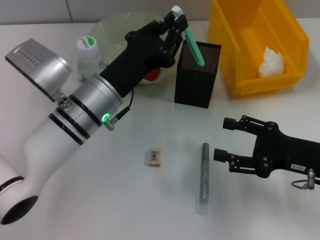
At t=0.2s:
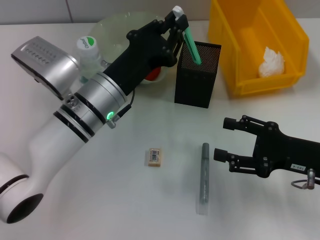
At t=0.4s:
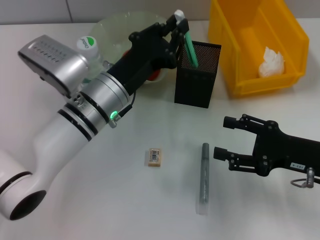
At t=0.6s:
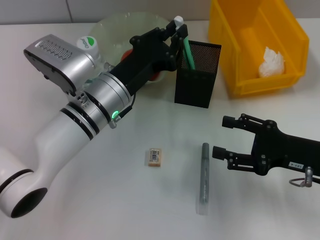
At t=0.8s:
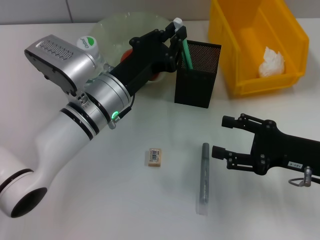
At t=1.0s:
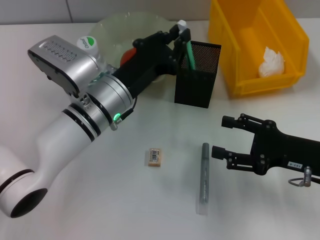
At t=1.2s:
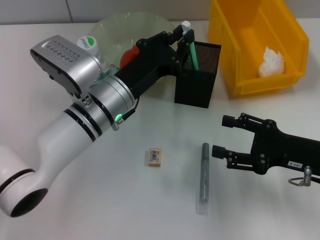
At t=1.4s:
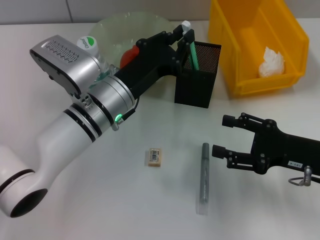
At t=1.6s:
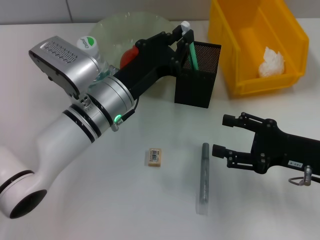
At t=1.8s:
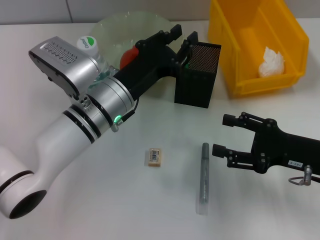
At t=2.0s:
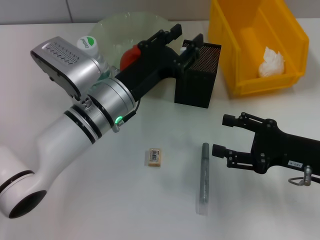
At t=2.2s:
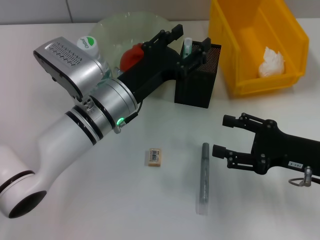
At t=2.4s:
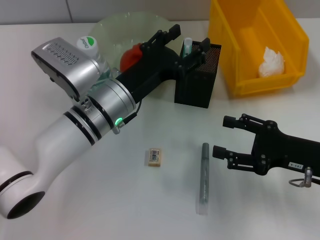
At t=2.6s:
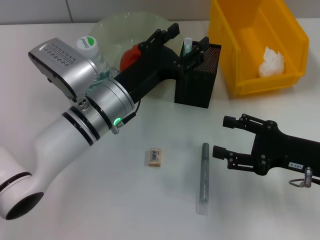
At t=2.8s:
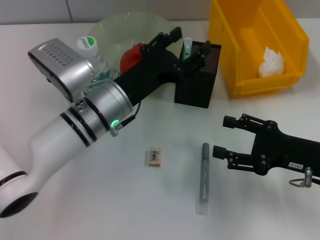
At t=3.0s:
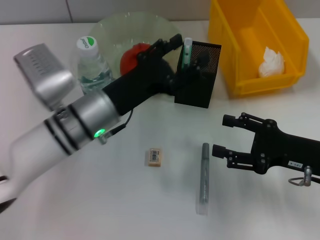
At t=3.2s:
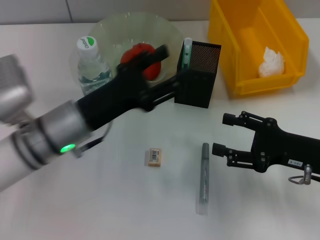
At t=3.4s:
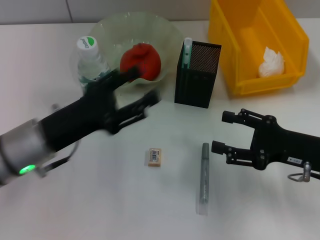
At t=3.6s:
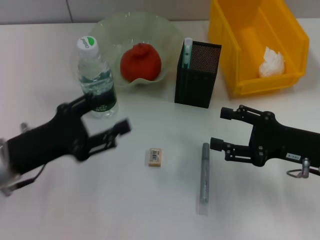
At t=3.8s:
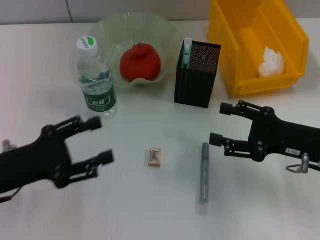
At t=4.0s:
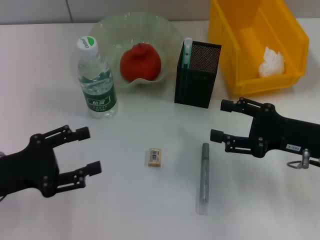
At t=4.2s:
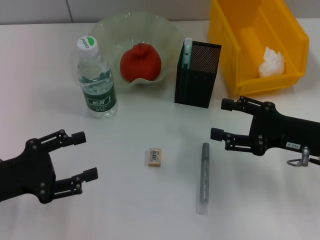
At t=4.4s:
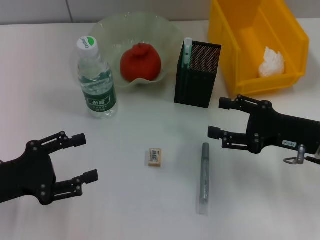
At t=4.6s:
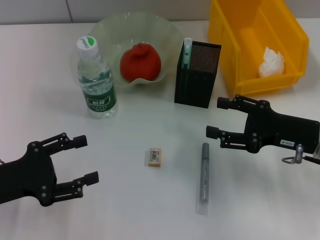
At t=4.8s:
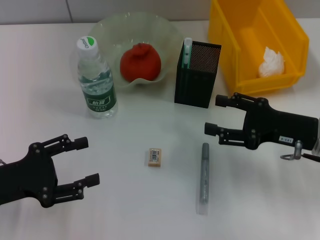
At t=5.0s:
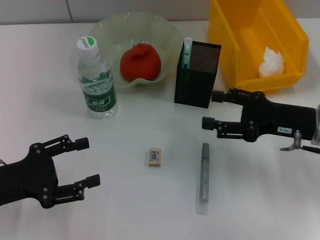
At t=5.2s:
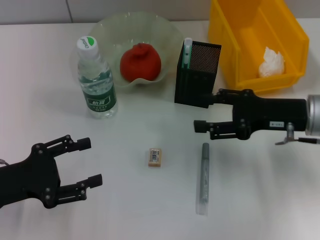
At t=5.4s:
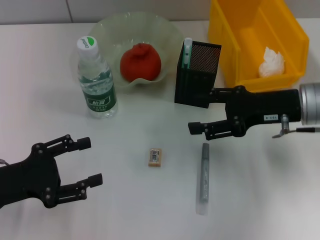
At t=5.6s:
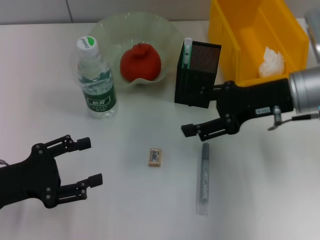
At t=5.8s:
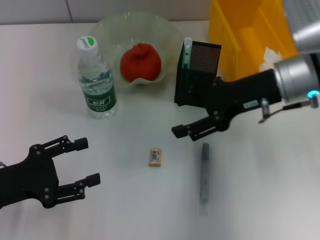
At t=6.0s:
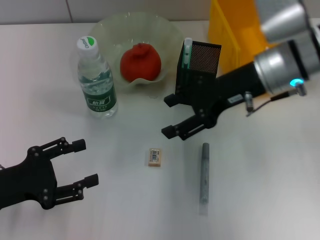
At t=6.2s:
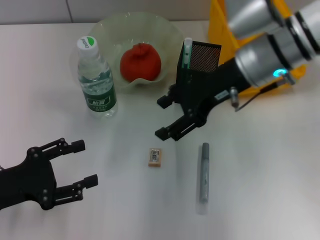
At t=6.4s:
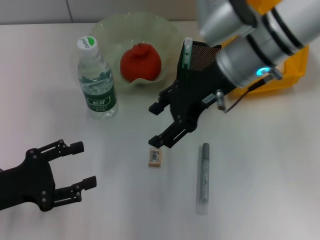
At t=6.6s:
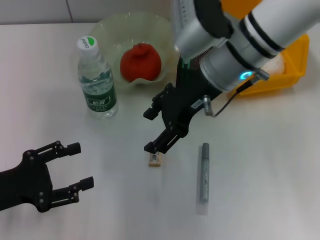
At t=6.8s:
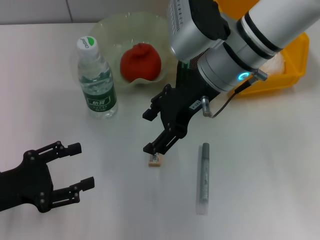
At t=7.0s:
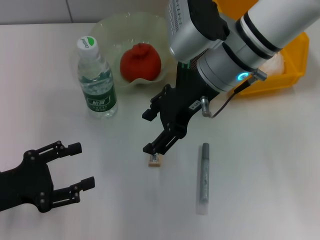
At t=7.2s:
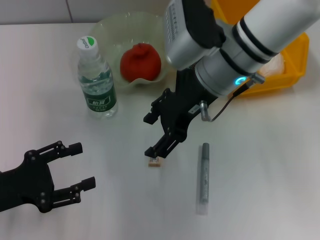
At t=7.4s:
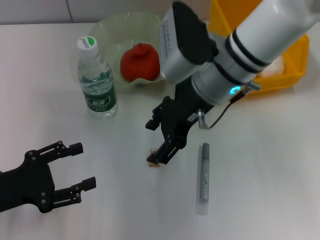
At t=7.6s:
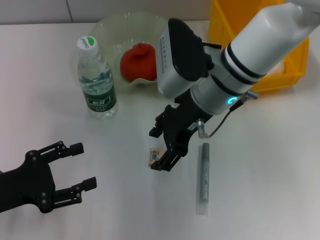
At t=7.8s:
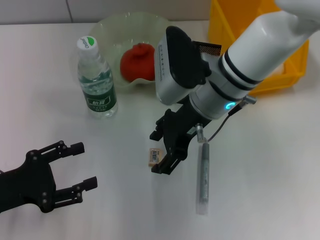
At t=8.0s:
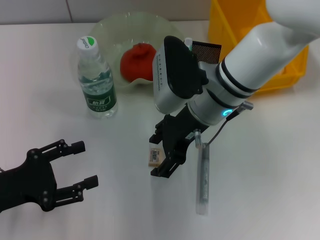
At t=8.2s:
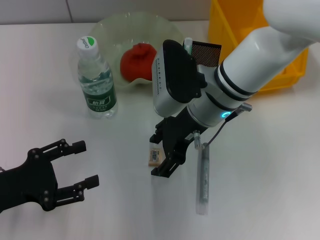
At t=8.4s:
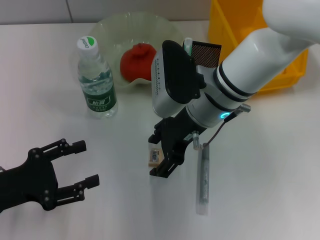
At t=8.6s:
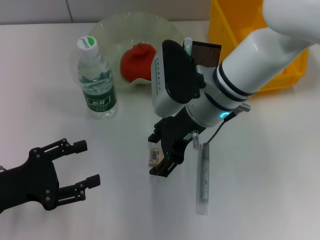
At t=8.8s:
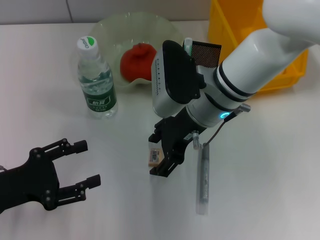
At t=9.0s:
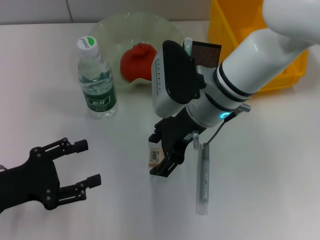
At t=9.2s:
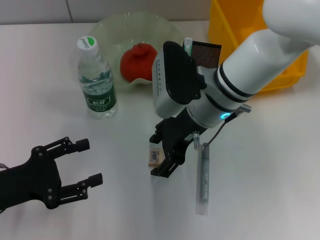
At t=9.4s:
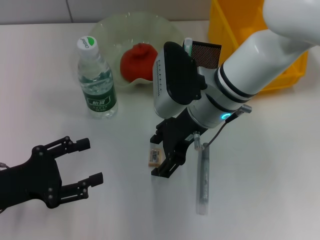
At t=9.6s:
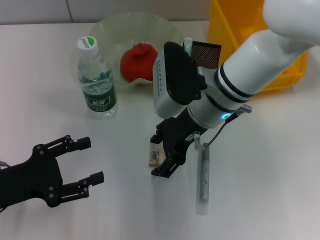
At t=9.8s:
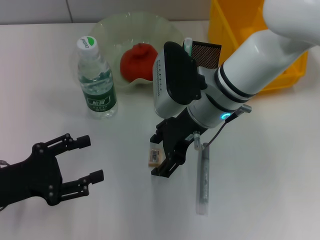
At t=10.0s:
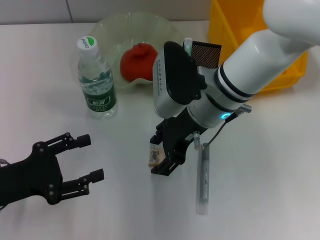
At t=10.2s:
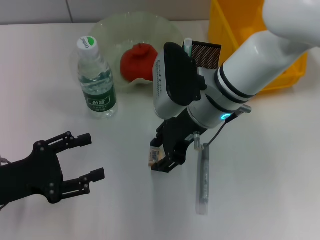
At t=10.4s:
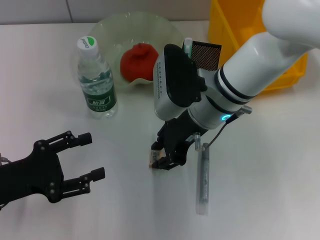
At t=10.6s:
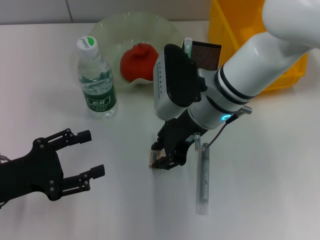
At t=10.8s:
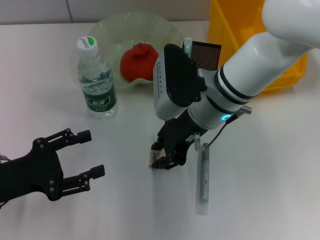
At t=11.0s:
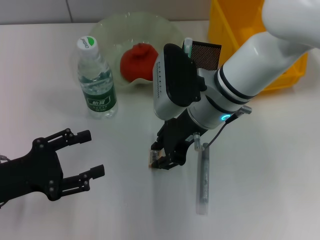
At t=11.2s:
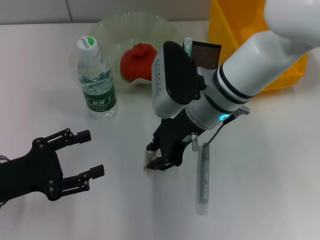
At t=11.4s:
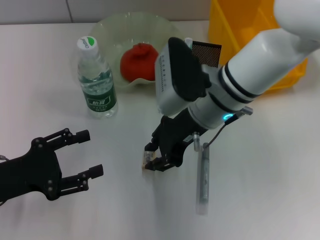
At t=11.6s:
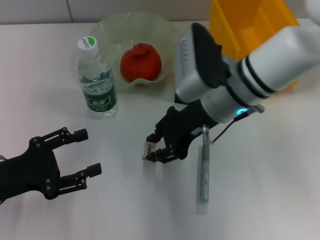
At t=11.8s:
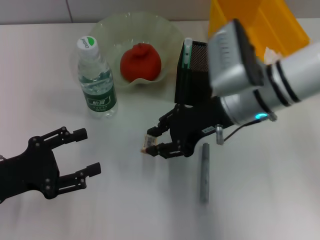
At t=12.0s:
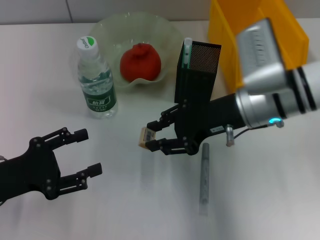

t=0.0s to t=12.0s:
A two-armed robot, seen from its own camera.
Step, t=0.0s to t=2.0s: Place the blue utility knife into the pen holder with the left hand.
Step, t=2.2s to t=10.8s: Grab the eraser with the right hand.
t=0.0s to t=1.6s: The grippers stay close to where they were, moving slightly.
t=1.6s to t=3.0s: The left gripper opens its fingers.
t=3.0s to t=4.4s: The left gripper moves to the left and backward, roughly 20 cm.
t=4.4s to t=6.0s: The right gripper travels upward, to the left and forward by about 15 cm.
t=6.0s to t=7.6s: The right gripper travels to the left by roughly 10 cm.
t=7.6s to t=9.0s: The grippers make only small movements.
t=9.0s to t=10.4s: Both grippers stay put.
t=10.4s to t=12.0s: The right gripper goes about 5 cm to the right.

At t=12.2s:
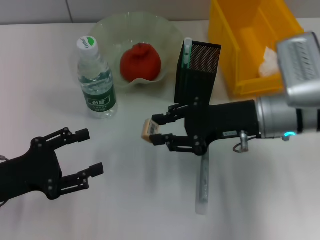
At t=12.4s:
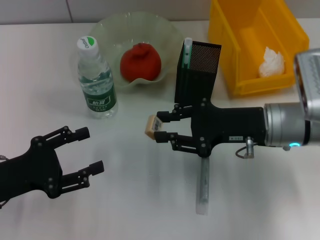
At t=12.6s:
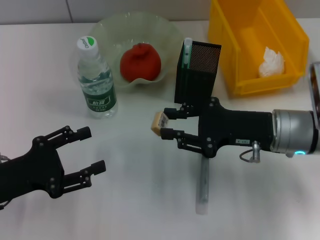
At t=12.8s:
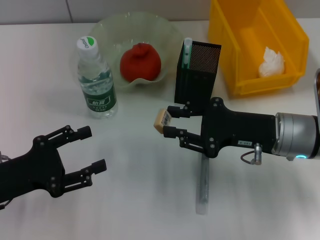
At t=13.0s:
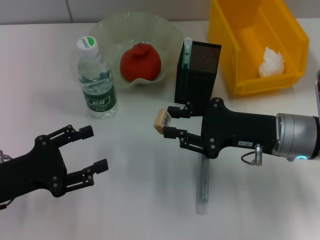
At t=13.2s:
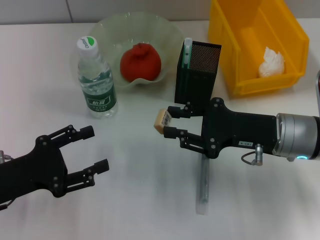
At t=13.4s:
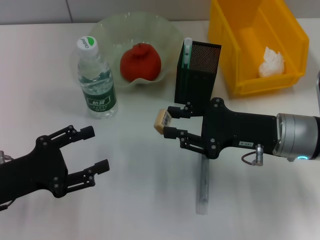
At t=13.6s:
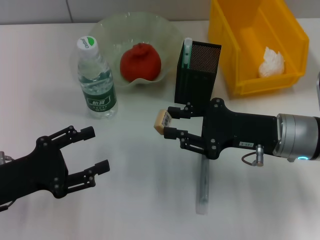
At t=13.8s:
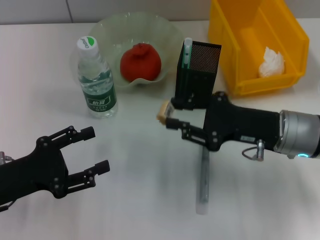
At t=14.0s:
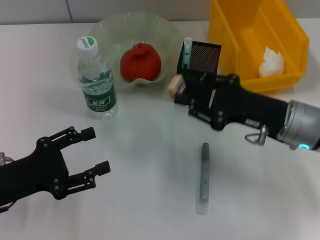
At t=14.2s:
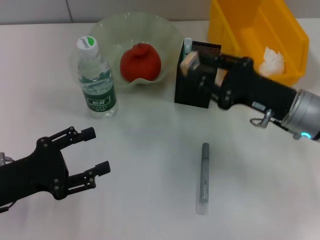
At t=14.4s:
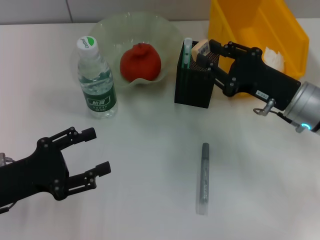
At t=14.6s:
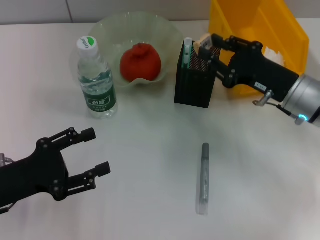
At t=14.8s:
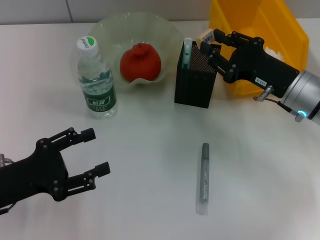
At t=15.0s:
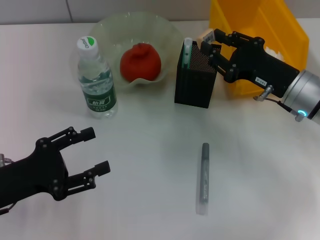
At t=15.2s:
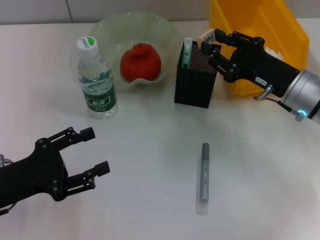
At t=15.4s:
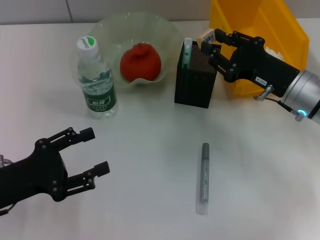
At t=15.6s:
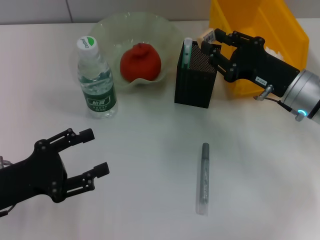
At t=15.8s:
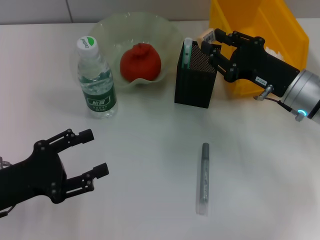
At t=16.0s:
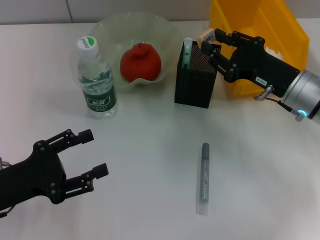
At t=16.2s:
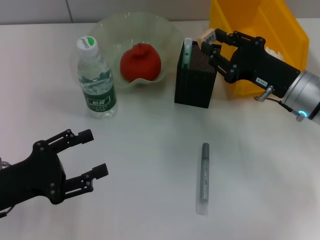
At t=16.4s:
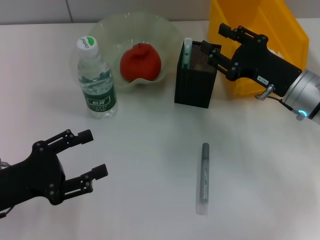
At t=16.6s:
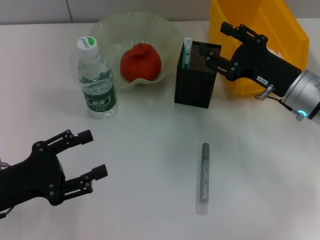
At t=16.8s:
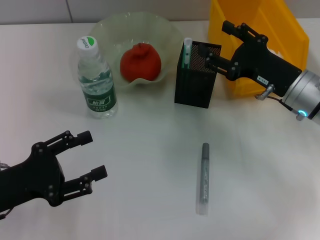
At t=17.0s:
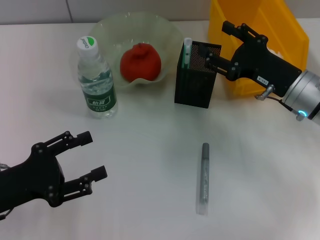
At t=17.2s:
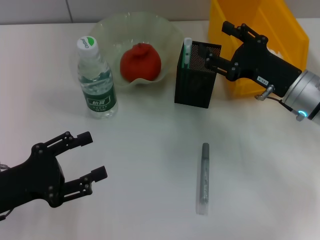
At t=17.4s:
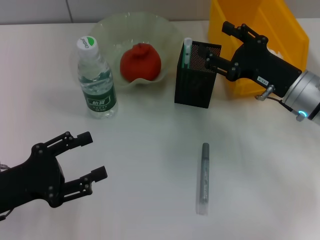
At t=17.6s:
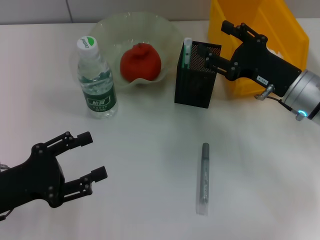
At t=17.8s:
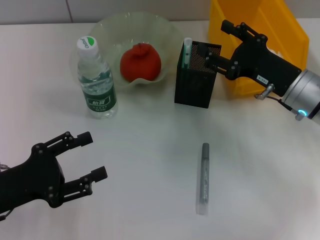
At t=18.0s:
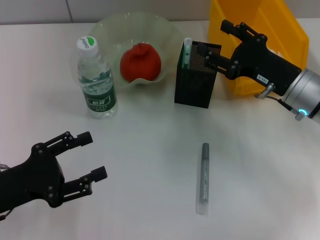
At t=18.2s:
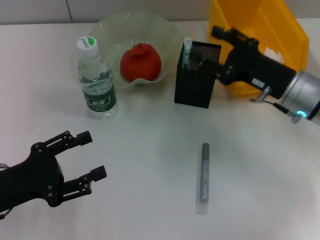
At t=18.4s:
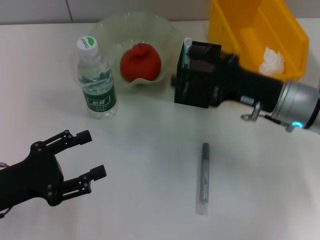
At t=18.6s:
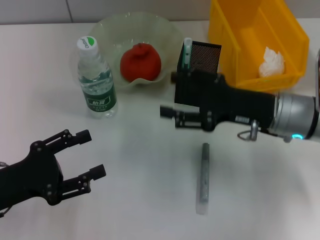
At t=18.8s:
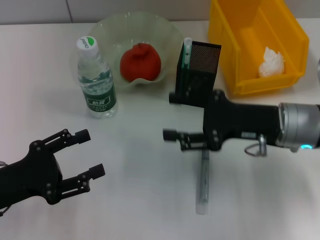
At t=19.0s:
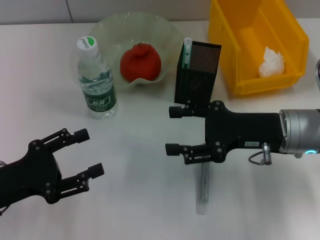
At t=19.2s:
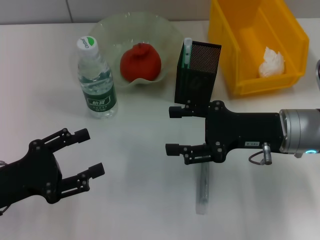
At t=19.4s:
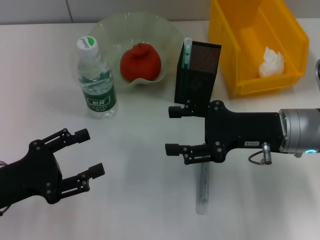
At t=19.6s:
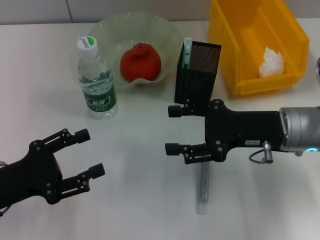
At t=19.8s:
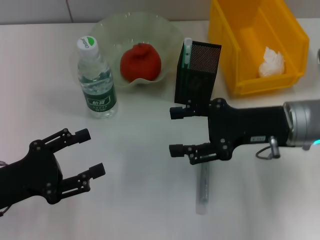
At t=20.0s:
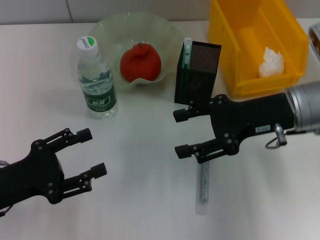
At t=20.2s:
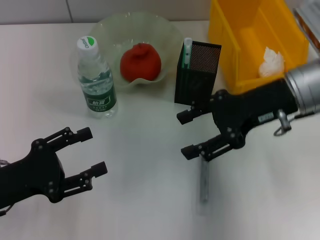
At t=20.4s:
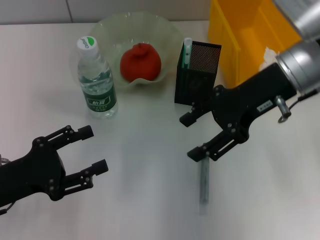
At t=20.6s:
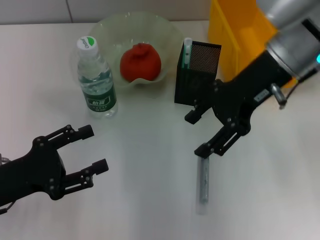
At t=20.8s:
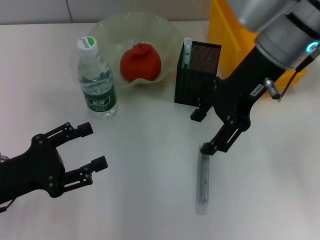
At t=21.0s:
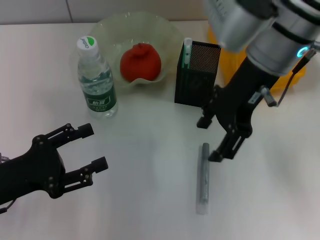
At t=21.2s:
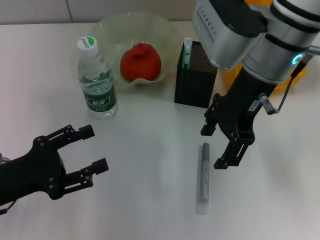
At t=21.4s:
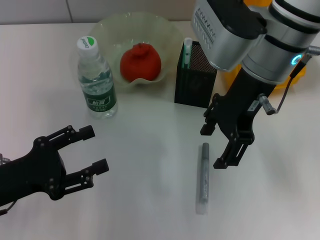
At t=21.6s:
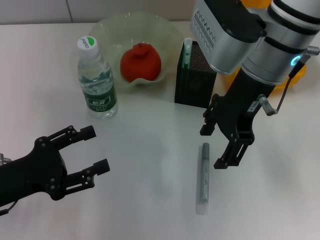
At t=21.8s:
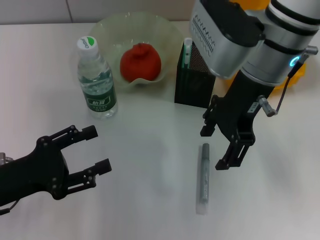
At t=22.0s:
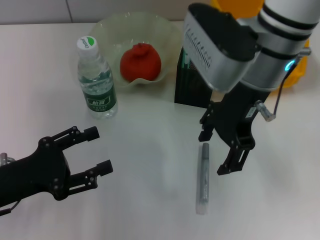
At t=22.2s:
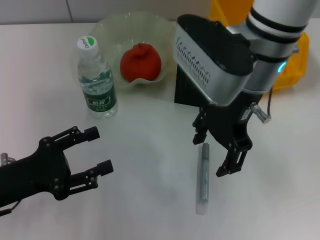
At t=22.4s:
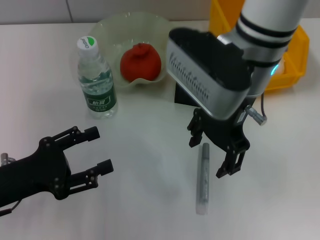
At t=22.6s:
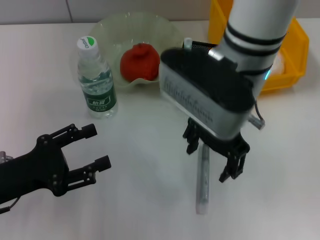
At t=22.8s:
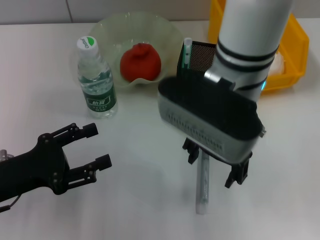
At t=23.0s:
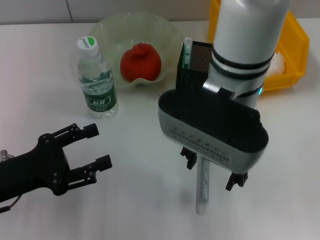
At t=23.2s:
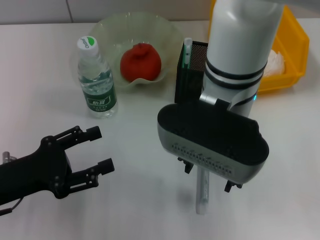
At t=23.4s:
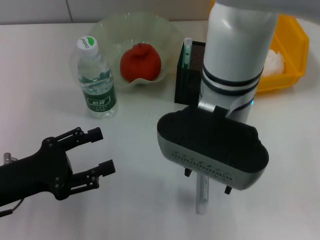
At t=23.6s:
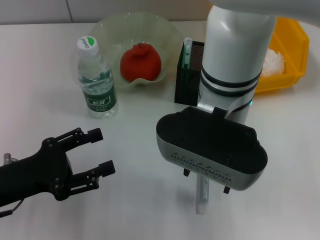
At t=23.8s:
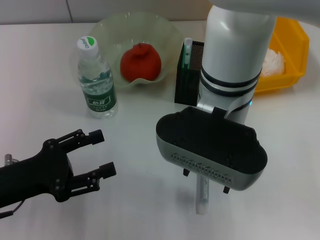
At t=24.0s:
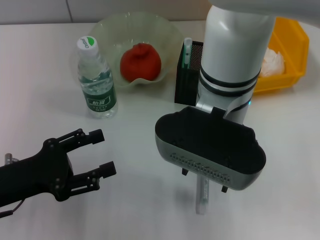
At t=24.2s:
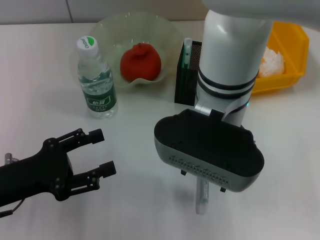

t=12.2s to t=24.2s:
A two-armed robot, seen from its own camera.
Step, t=12.2s to t=16.4s: Put the eraser into the pen holder with the right hand.
t=12.2s to t=13.8s: The grippers make only small movements.
t=13.8s to t=15.2s: The right gripper shifts by approximately 5 cm.
t=15.2s to t=16.6s: Both grippers stay about where they are.
t=16.6s to t=18.2s: There are only small adjustments of the grippers.
t=19.8s to t=21.2s: The right gripper moves upward, to the left and forward, some 15 cm.
t=21.2s to t=22.6s: The right gripper changes place by about 5 cm.
